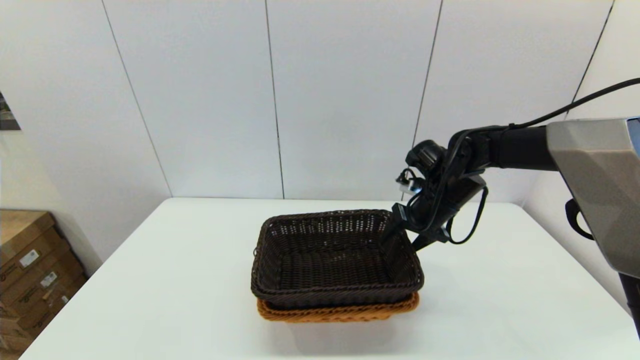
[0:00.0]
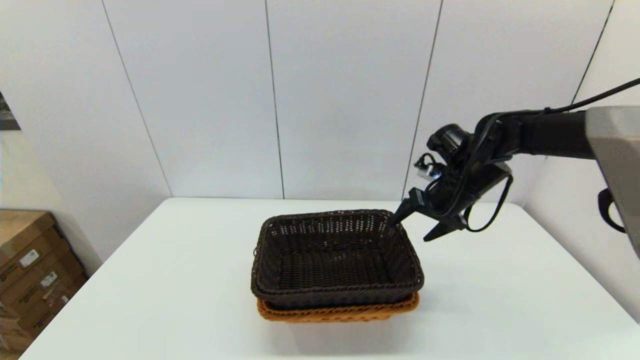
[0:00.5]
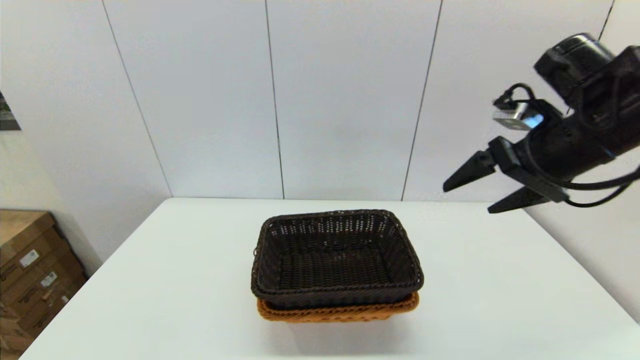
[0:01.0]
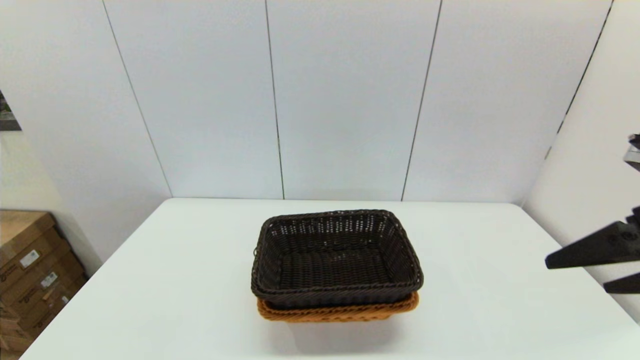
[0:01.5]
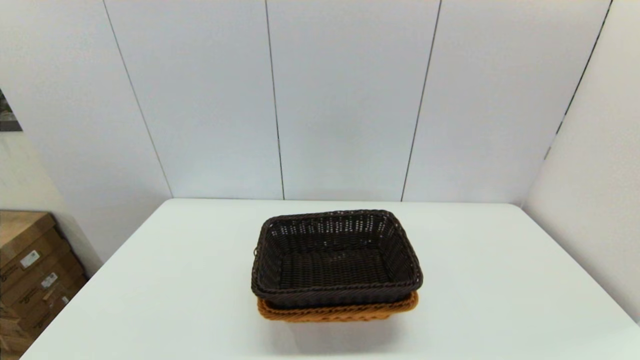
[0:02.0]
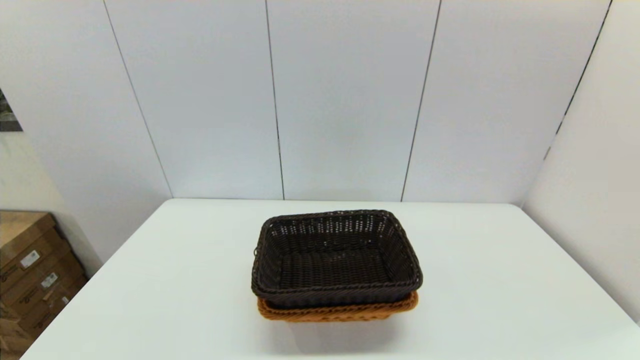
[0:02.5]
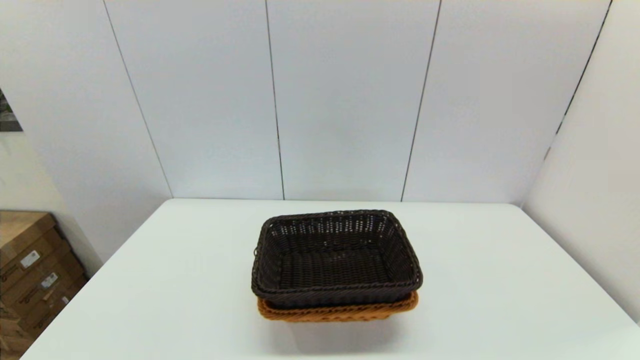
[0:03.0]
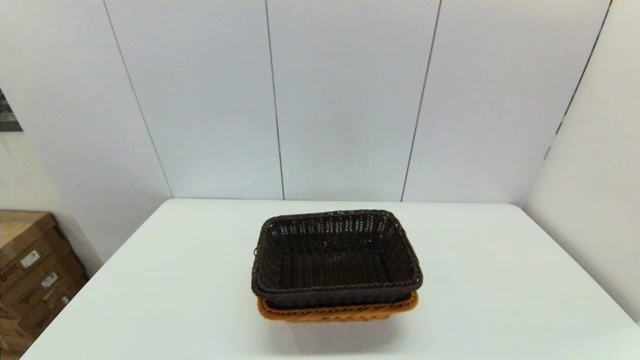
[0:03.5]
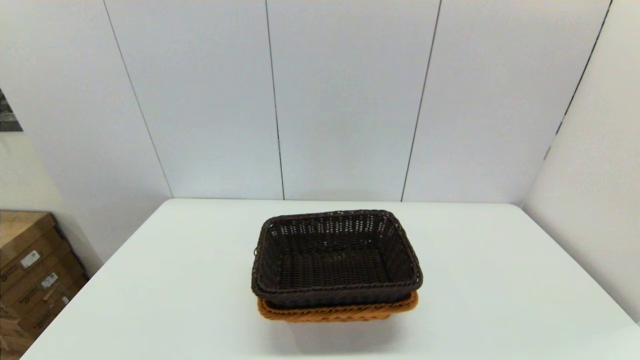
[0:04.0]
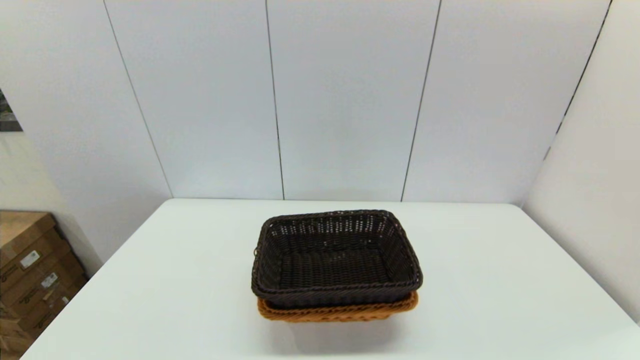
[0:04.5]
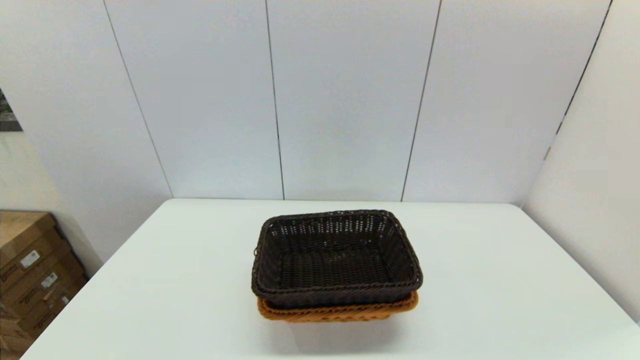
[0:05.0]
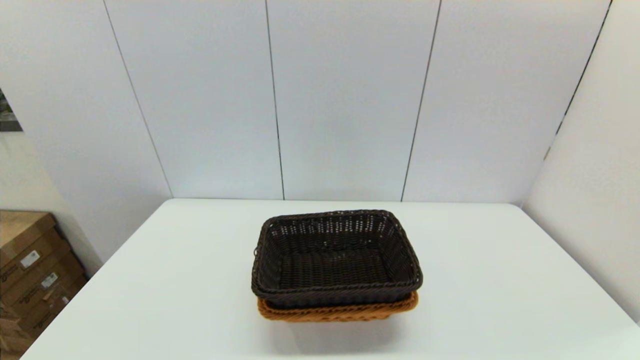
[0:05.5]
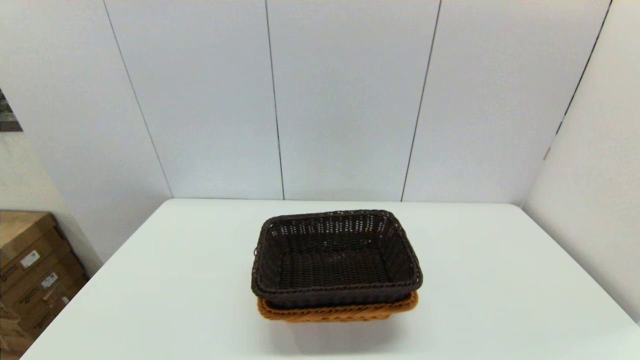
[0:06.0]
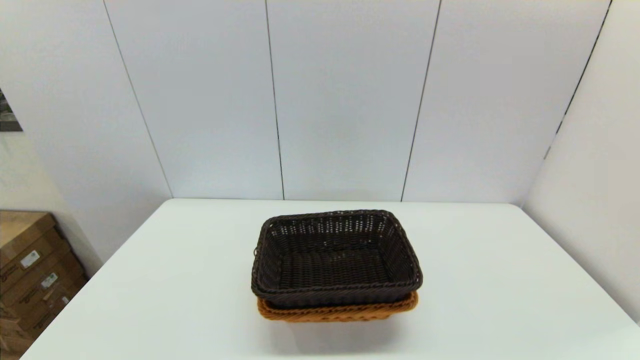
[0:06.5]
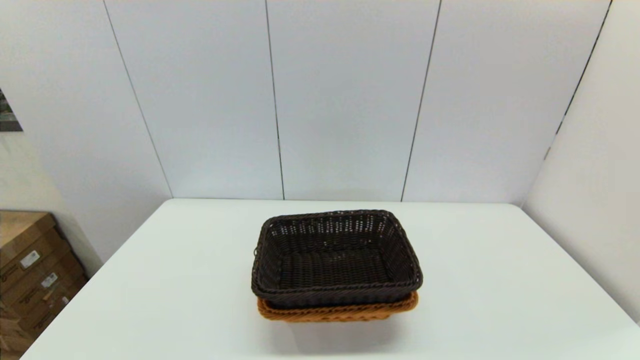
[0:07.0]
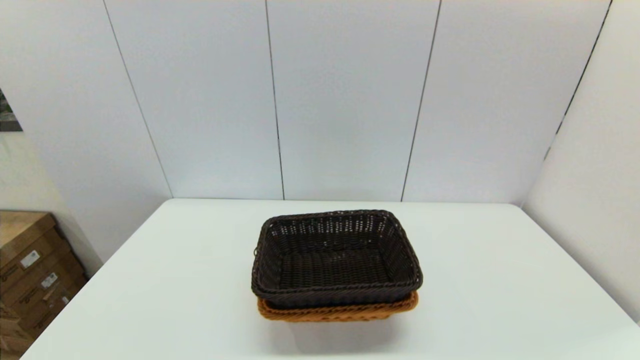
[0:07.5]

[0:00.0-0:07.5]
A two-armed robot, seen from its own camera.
Task of the whole recording: stack a basket on top of another basket.
0:00.0 to 0:02.0: The right gripper moves backward, some 40 cm, and opens.
